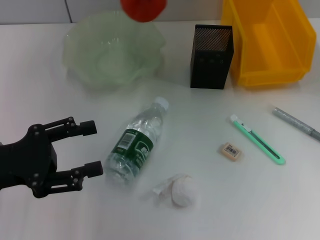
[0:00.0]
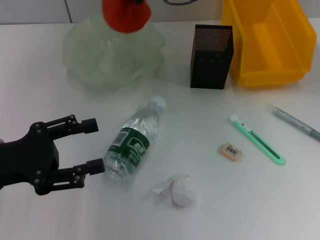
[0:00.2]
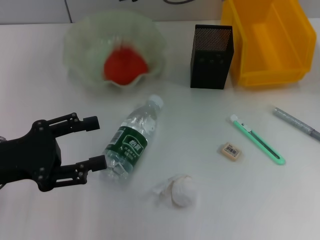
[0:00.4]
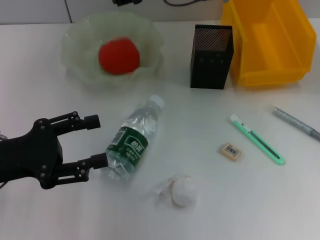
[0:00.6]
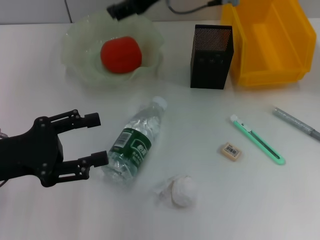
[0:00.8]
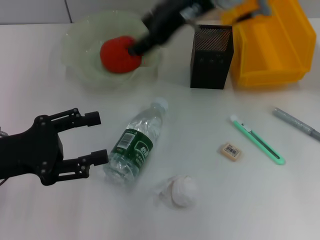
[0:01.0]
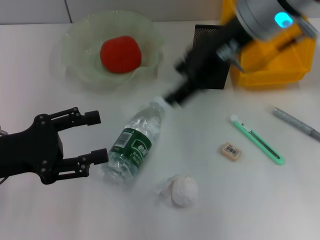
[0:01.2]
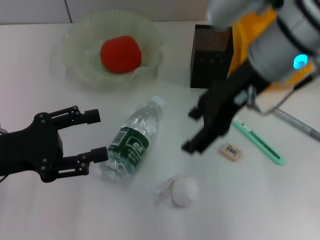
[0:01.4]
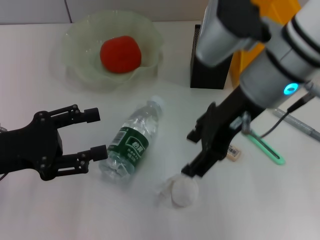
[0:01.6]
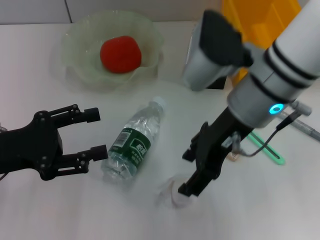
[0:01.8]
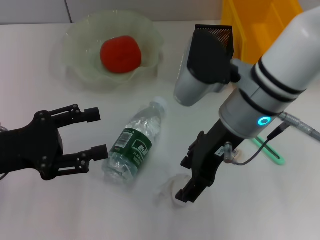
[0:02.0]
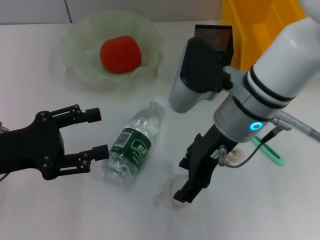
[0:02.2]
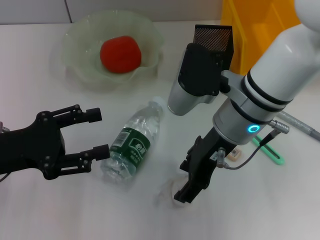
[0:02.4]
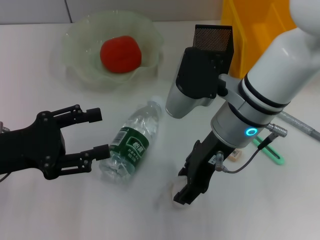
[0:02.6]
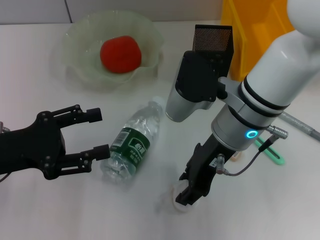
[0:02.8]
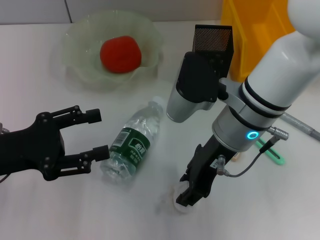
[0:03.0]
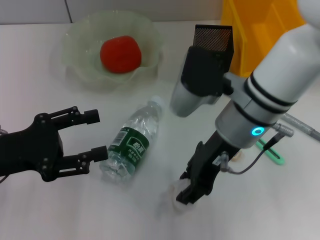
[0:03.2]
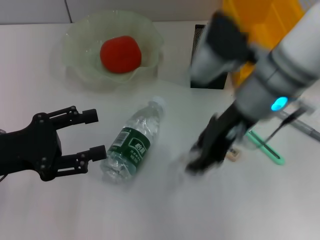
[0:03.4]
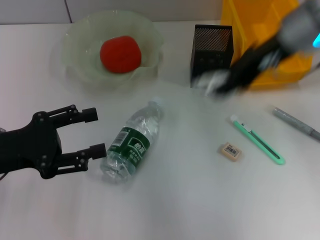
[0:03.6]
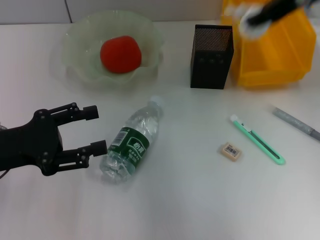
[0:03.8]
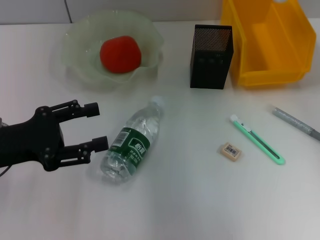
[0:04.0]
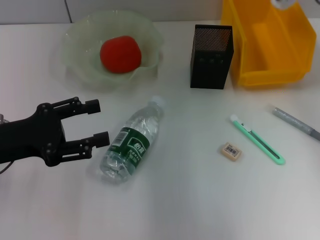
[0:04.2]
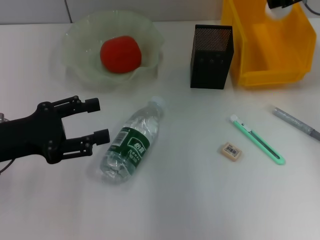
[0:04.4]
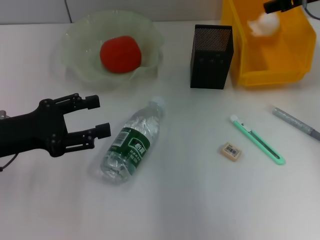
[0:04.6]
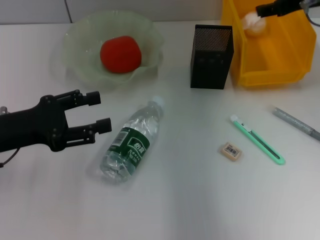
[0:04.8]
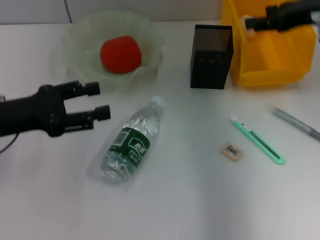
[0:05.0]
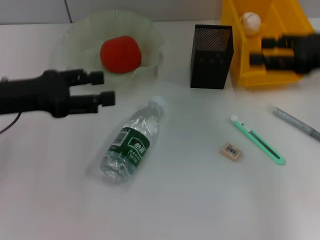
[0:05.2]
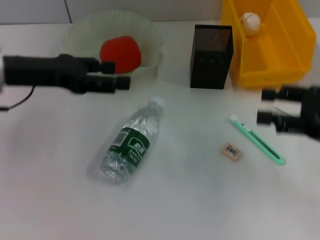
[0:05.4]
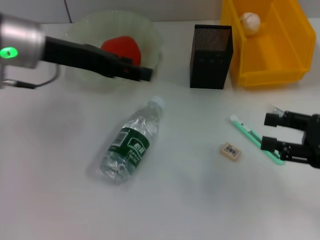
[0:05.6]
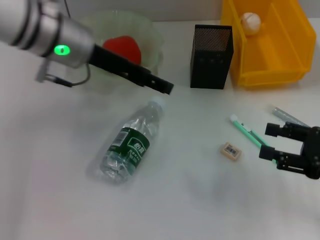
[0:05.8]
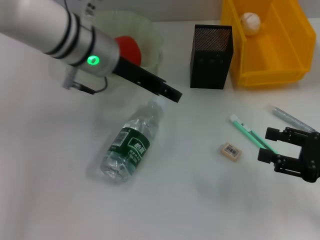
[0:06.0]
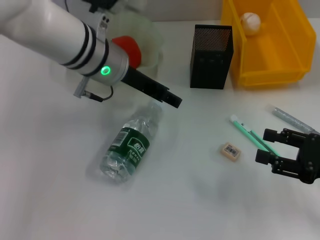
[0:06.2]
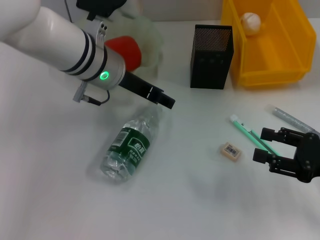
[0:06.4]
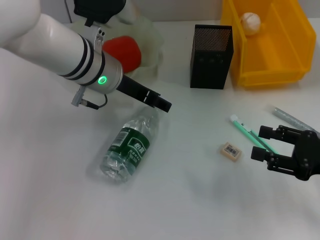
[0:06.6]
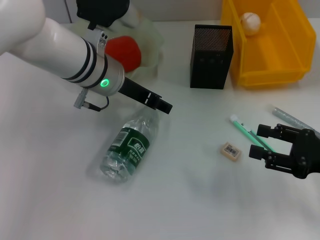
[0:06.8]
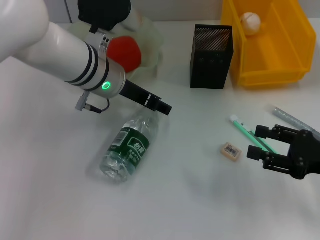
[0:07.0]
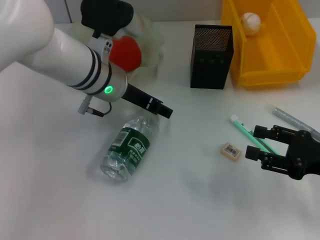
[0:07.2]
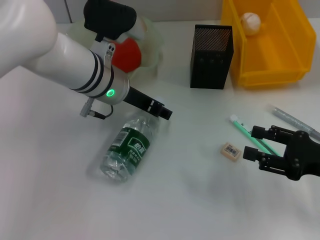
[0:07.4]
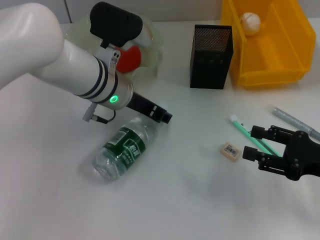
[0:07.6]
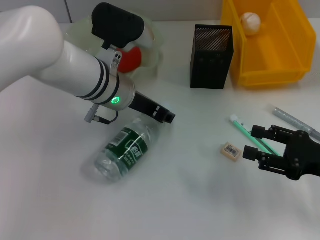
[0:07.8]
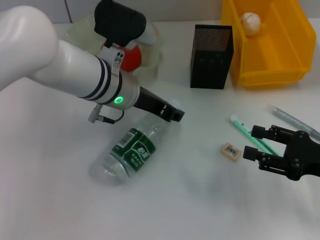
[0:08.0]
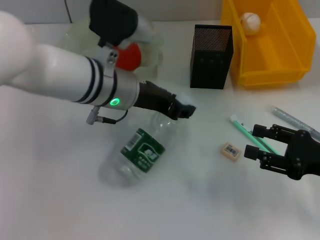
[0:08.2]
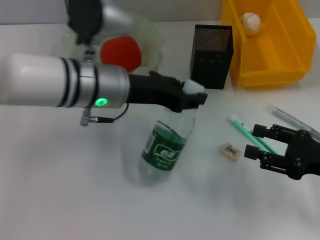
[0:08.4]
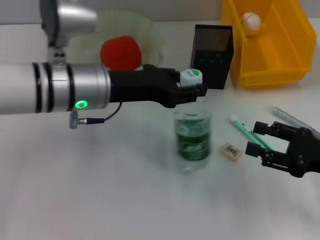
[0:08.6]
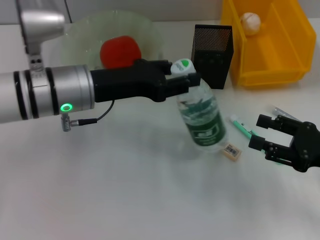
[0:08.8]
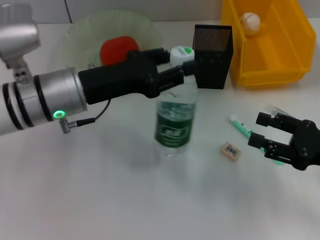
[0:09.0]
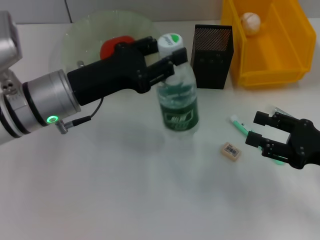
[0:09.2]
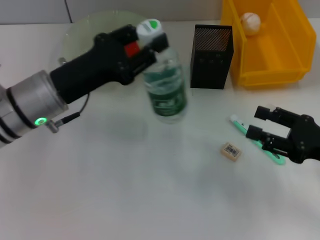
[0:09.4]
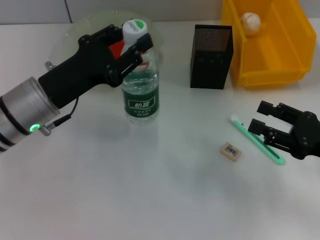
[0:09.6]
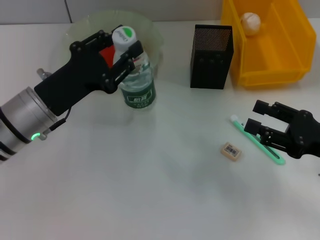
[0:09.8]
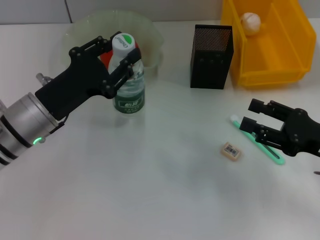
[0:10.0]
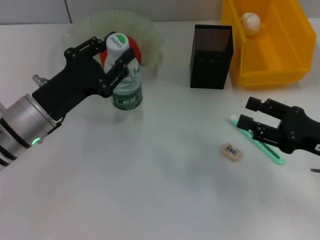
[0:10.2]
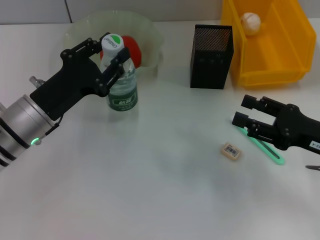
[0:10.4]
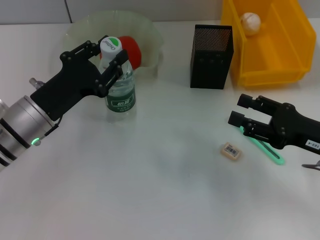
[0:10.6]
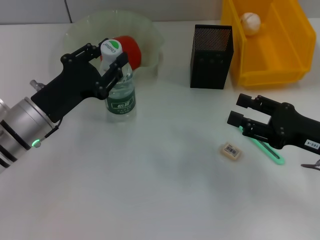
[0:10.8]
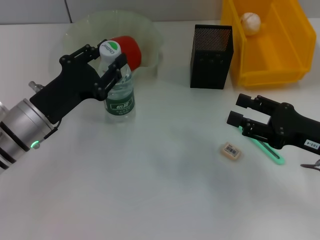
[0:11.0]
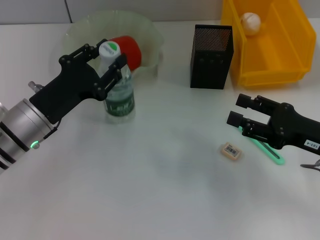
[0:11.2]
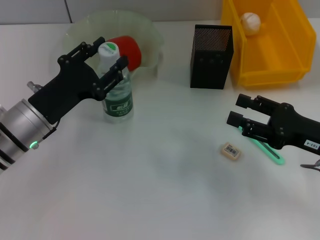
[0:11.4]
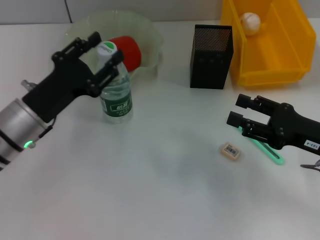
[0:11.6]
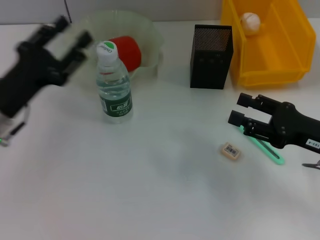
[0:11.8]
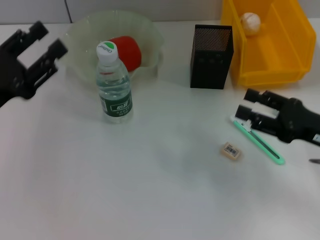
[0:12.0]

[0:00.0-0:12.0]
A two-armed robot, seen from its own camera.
Step, 0.6 to 3.0 s: Grab the paper ball with the right hand.
Step, 3.2 to 4.6 s: Place the paper ball into the trash can with the right hand.
Step, 4.8 to 7.6 s: Grab the water bottle with the left hand.
Step, 7.8 to 11.4 s: Place the water bottle on the table with the left hand.
0.0 to 1.6 s: The right gripper travels backward by approximately 15 cm, and opens its fingers.
1.6 to 3.0 s: The right gripper is displaced downward by about 5 cm, and closes its fingers.
3.0 to 4.4 s: The right gripper heads to the right, forward and upward, covering roughly 20 cm.
4.4 to 6.0 s: The right gripper shifts approximately 25 cm backward and downward. The left gripper goes roughly 25 cm to the right, forward and upward.
6.0 to 7.6 s: The left gripper is displaced downward by roughly 5 cm, and closes up.
7.6 to 9.0 s: The left gripper travels to the left and backward by approximately 10 cm, and closes its fingers.
9.0 to 10.4 s: The left gripper goes about 5 cm downward.
10.4 to 12.0 s: The left gripper travels to the left by roughly 10 cm, and opens.

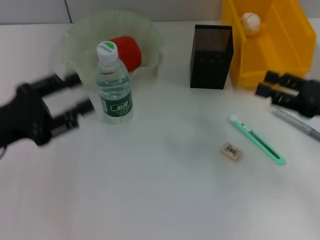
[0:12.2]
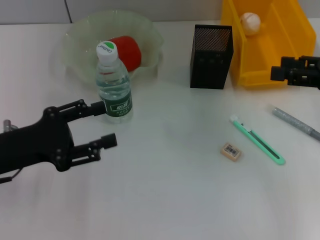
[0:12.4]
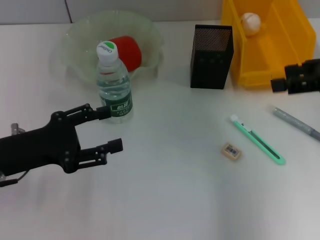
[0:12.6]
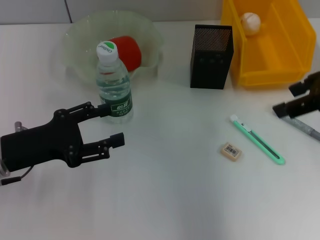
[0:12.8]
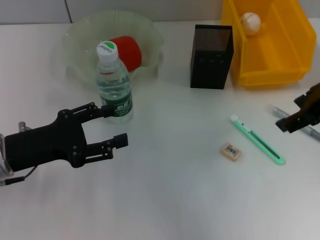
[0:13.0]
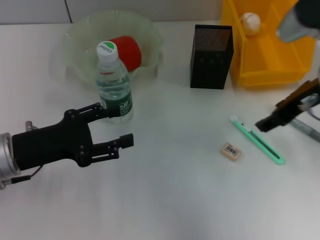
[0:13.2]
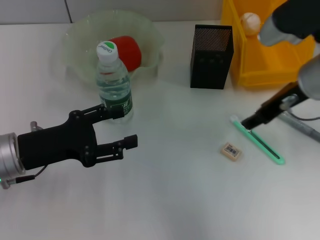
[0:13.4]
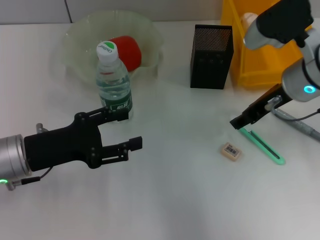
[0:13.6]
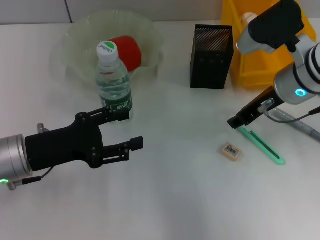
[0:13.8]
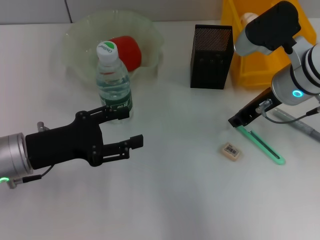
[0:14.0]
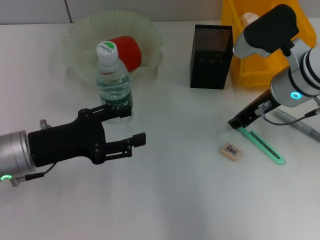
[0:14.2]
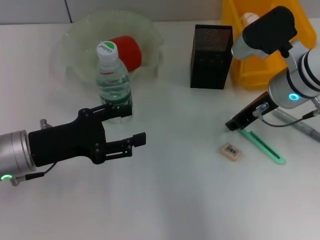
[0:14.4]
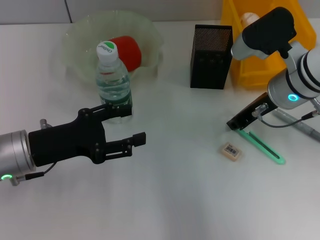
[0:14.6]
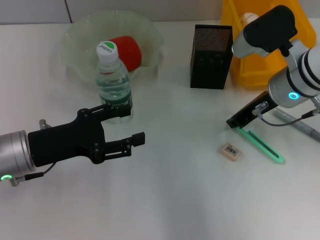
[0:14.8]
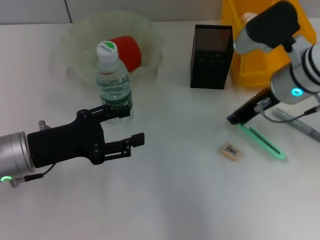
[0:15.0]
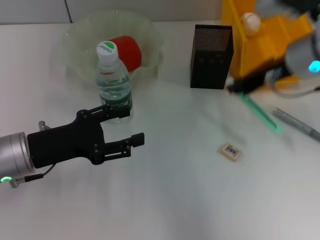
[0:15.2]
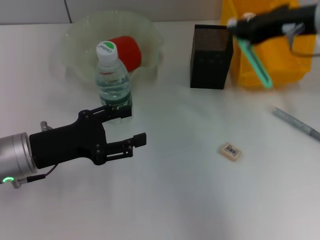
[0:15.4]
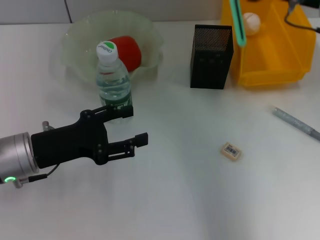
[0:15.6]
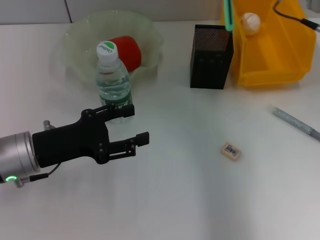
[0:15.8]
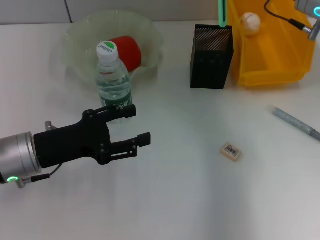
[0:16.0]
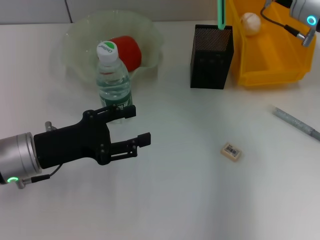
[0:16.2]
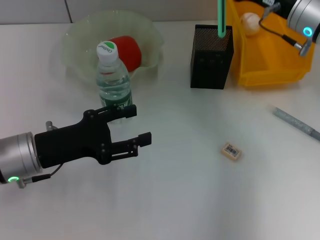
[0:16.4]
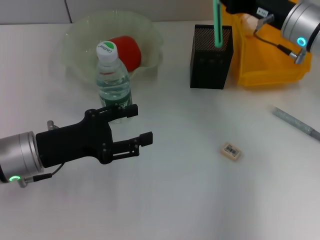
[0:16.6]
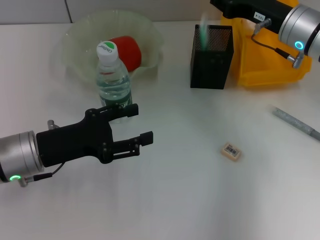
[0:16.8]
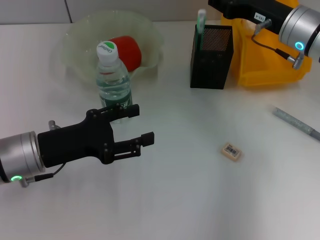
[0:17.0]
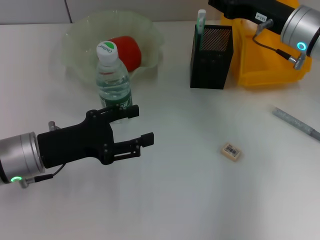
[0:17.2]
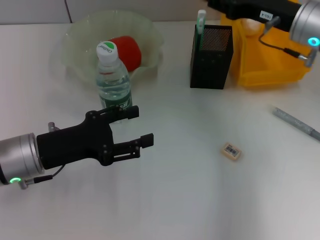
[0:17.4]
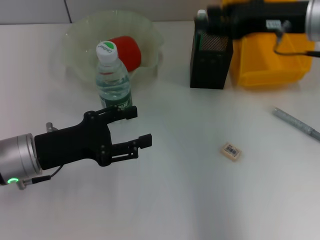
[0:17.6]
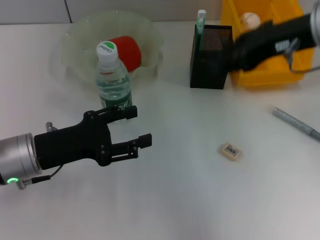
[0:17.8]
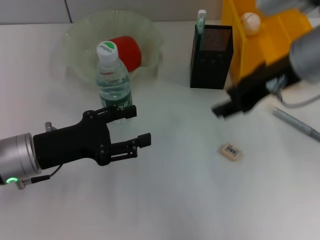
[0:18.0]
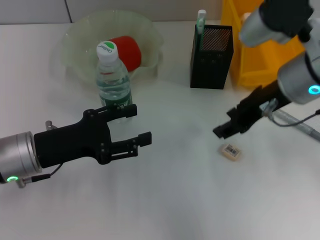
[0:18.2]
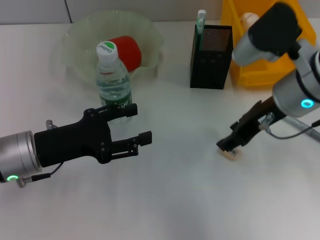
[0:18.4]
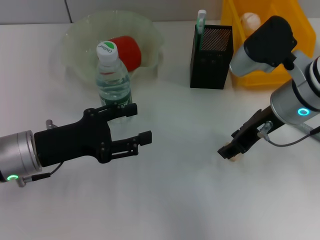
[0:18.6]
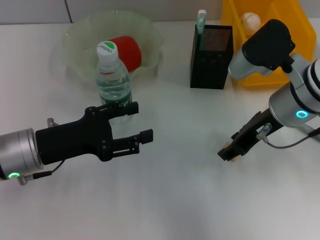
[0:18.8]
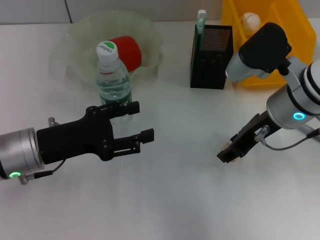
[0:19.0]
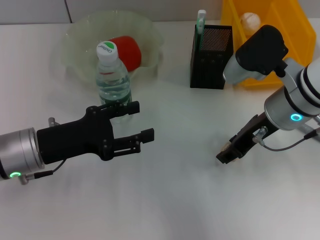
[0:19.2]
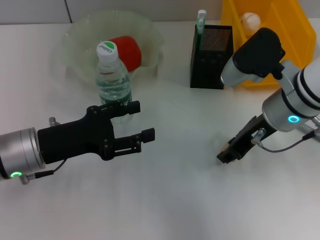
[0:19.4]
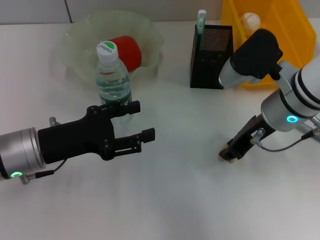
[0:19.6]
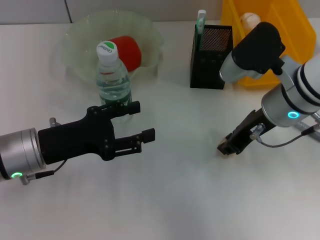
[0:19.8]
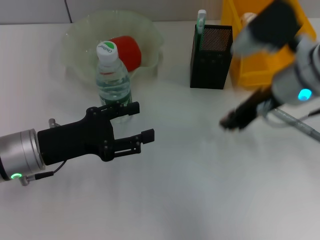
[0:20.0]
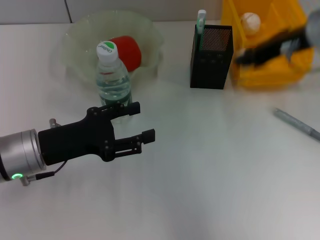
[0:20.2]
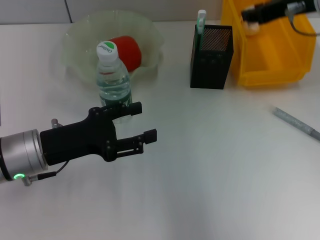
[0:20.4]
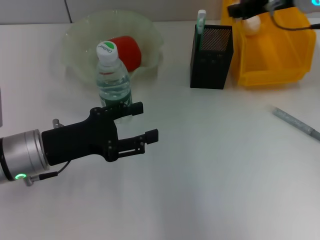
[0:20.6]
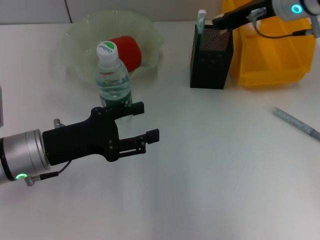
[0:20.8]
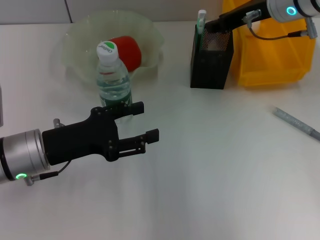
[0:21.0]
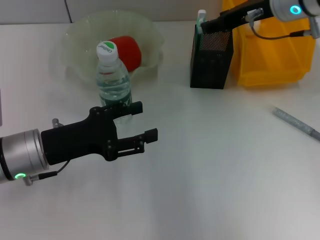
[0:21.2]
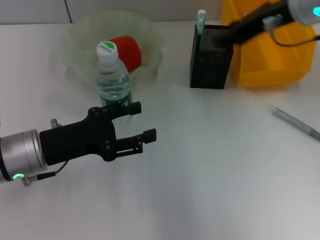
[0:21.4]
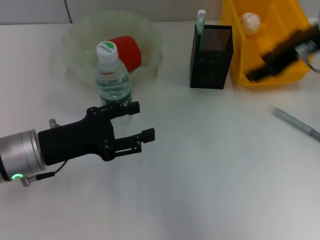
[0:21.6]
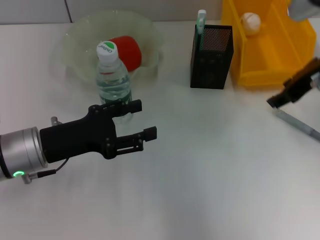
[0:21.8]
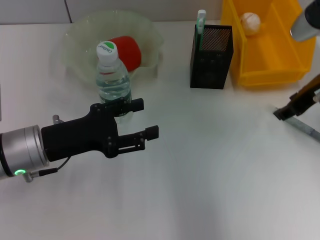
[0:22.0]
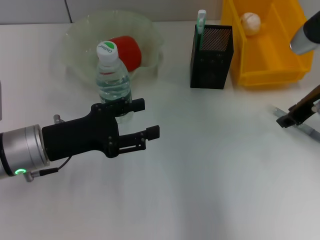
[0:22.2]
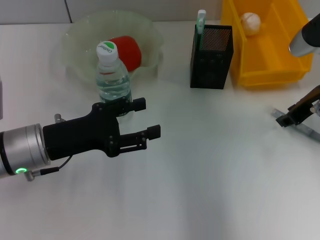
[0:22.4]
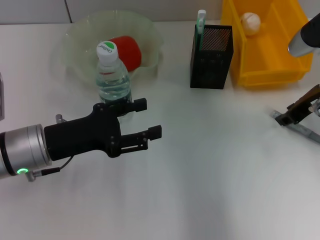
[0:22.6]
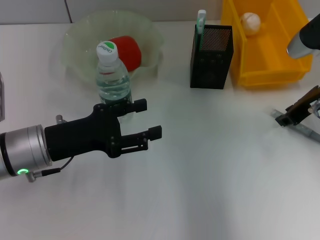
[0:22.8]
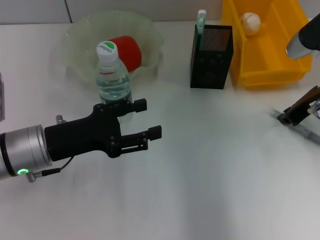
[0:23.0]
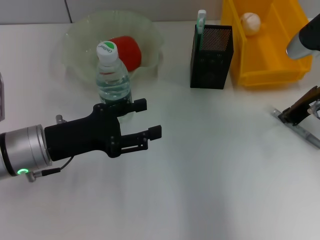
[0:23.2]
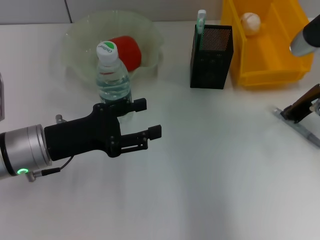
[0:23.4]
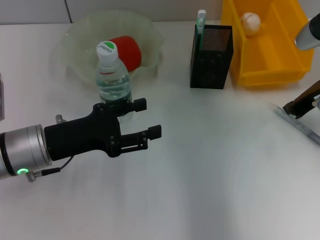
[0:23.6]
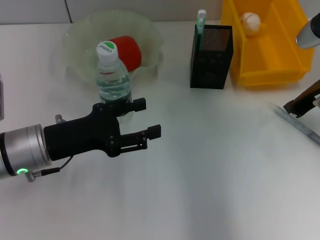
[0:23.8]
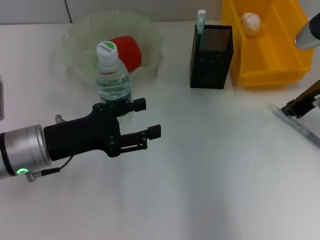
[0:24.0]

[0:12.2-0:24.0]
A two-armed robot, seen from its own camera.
Step, 12.2 to 14.6 s: Grab the blue utility knife with the right hand.
Step, 15.0 to 16.8 s: Place the blue utility knife into the pen holder with the right hand.
Step, 17.0 to 19.4 s: Grab the eraser with the right hand.
Step, 19.8 to 21.0 s: Put the eraser into the pen holder with the right hand.
12.2 to 13.6 s: The left gripper shifts some 5 cm to the right, and opens. Meanwhile the right gripper shifts about 15 cm to the left and forward.
13.6 to 15.2 s: The right gripper closes its fingers.
15.2 to 16.6 s: The right gripper shifts approximately 5 cm downward.
16.6 to 18.2 s: The right gripper moves backward, about 5 cm, and opens its fingers.
18.2 to 19.6 s: The right gripper shifts approximately 5 cm downward.
19.6 to 21.0 s: The right gripper travels forward and upward by some 10 cm.
21.0 to 22.6 s: The right gripper goes roughly 10 cm to the right, downward and backward.
22.6 to 24.0 s: The right gripper closes its fingers.
